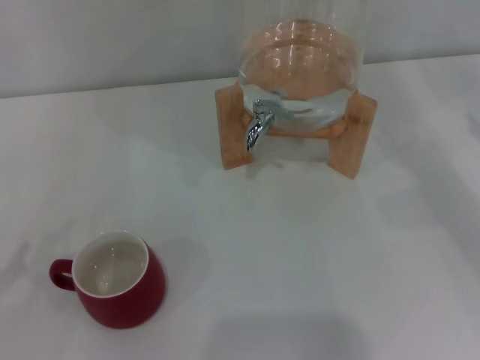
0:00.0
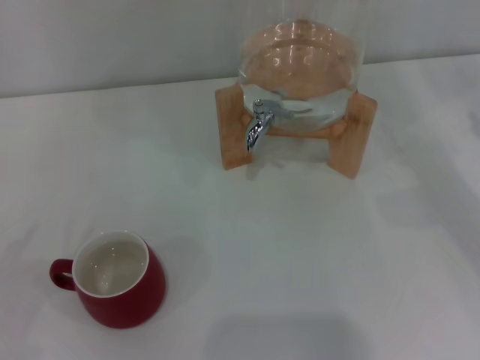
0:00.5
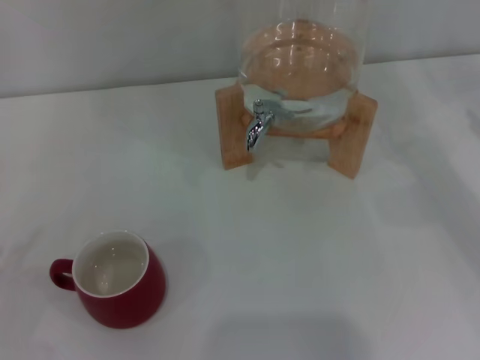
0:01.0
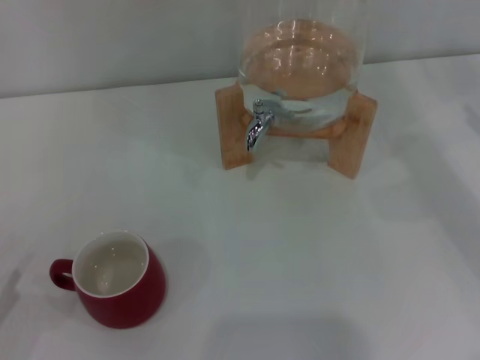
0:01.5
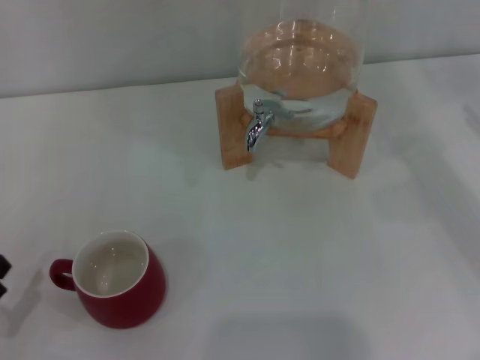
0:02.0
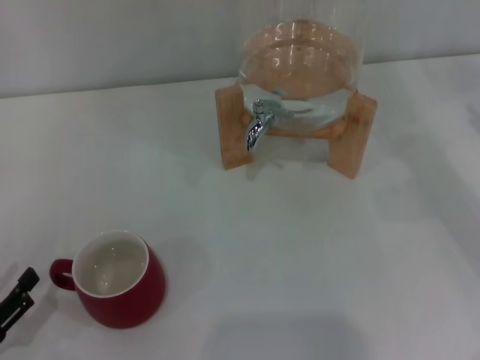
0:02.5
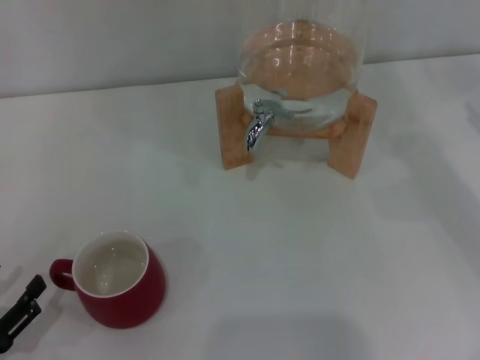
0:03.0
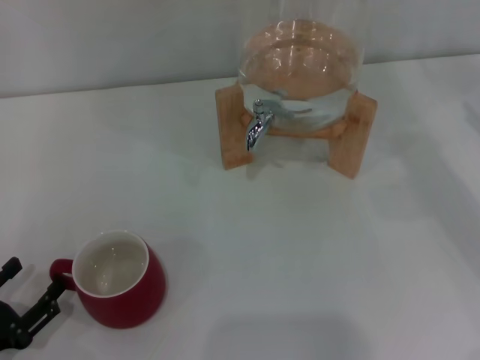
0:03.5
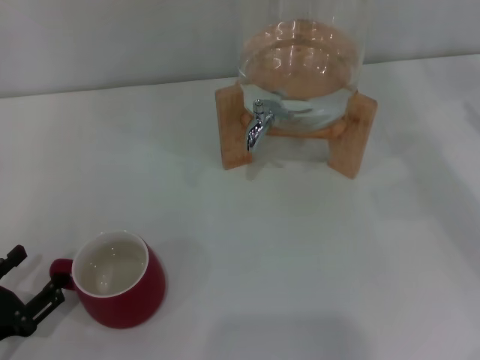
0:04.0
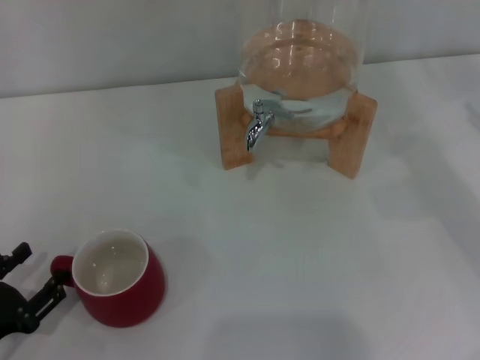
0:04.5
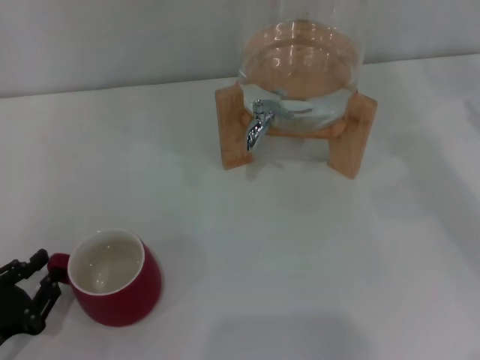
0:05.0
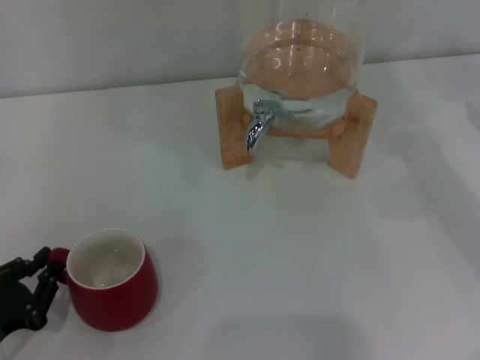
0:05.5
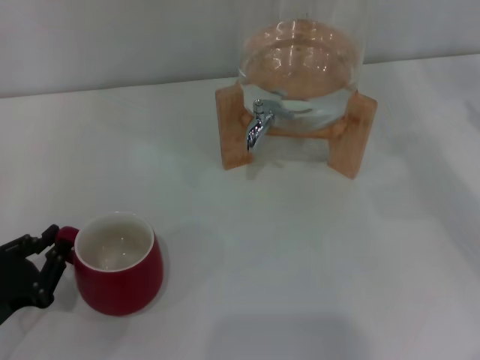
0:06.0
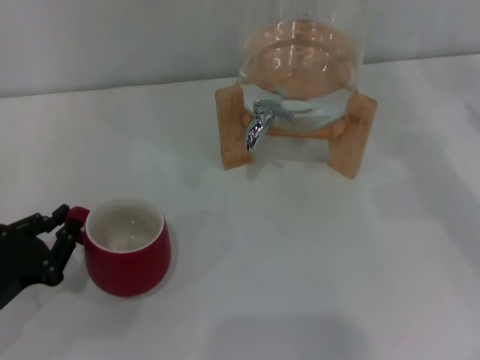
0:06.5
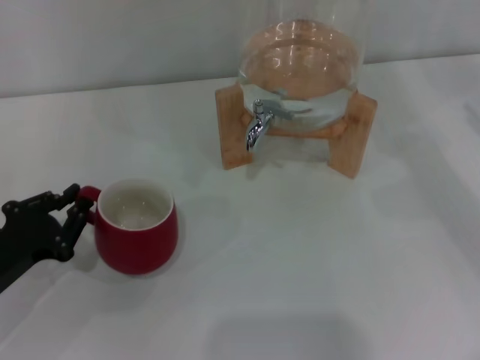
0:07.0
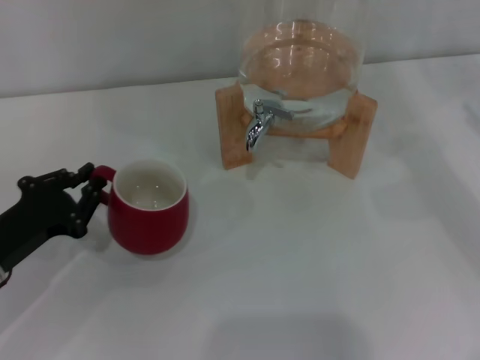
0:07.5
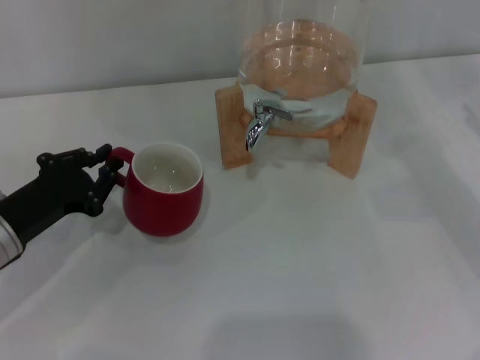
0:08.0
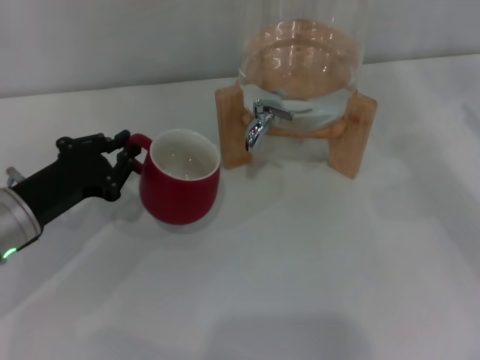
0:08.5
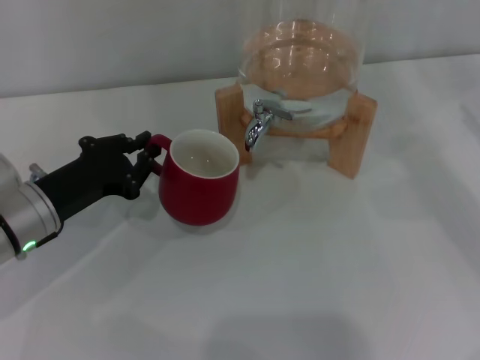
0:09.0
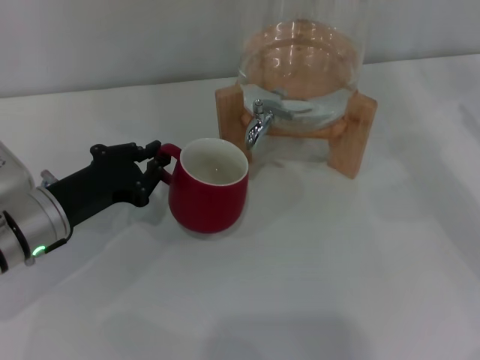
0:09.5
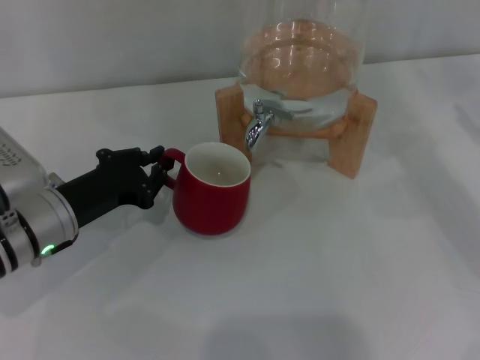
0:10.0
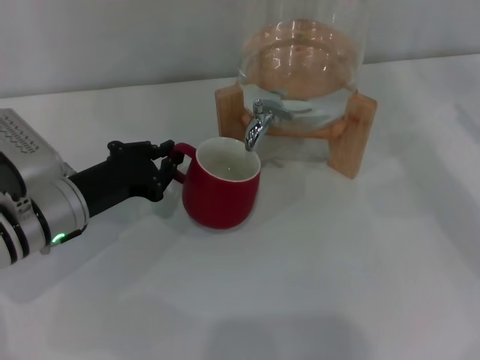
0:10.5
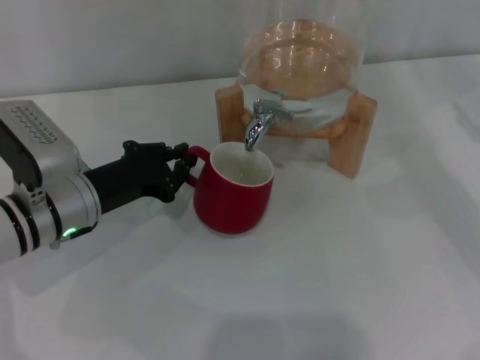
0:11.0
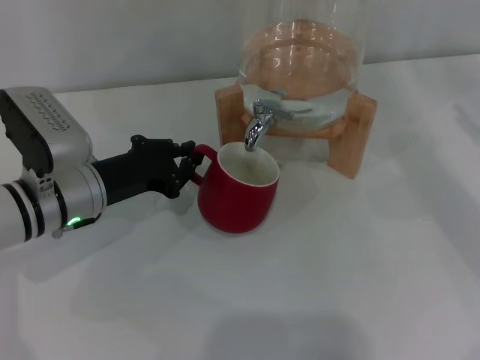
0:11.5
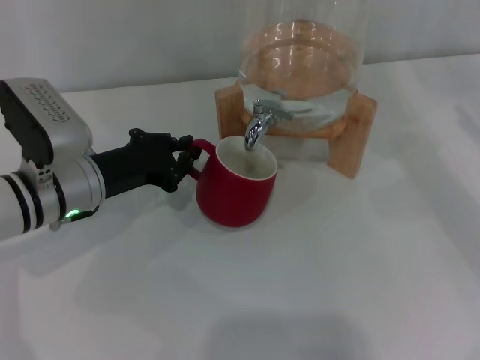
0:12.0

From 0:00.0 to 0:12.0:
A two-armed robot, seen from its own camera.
Task of the whole recording: the left gripper pick up the red cup and place it horizontally under the faucet, the right gripper turn on the faucet to fill the cup, and then turn off the faucet.
From 0:00.0 to 0:02.0: The left gripper moves downward, some 5 cm.
From 0:02.0 to 0:04.0: The grippers stay close to where they were, moving slightly.
From 0:04.0 to 0:06.0: The left gripper closes up.
From 0:06.0 to 0:08.0: The left gripper travels forward and to the right by roughly 10 cm.
From 0:08.0 to 0:10.0: The left gripper shifts by about 5 cm.
From 0:10.0 to 0:12.0: The grippers stay close to where they were, moving slightly.

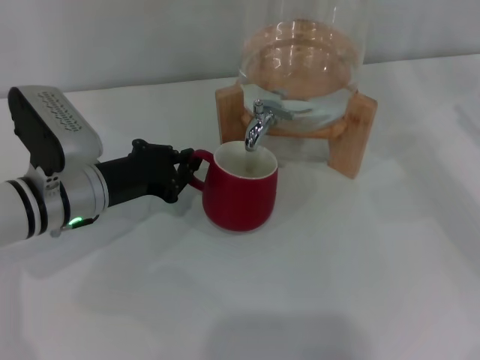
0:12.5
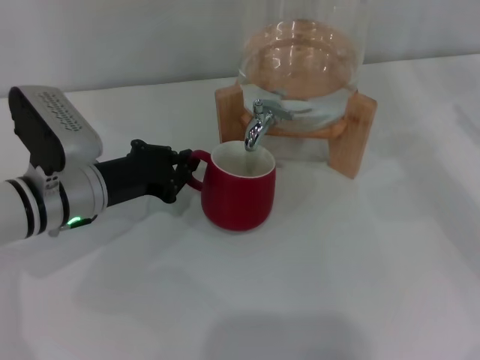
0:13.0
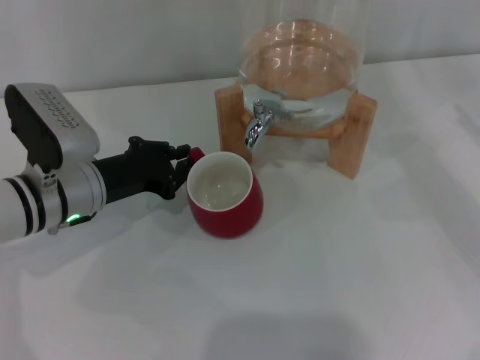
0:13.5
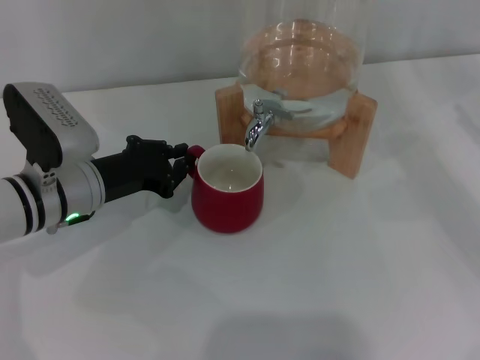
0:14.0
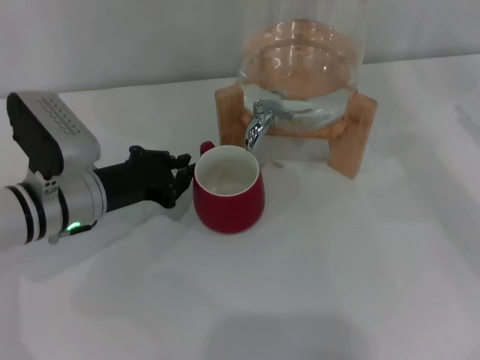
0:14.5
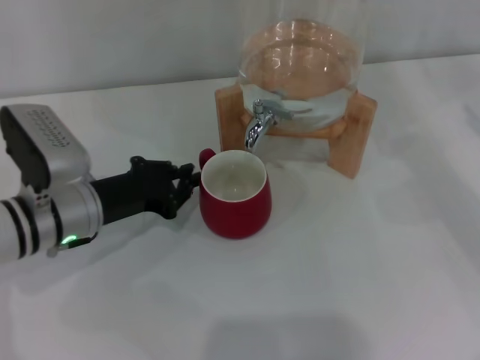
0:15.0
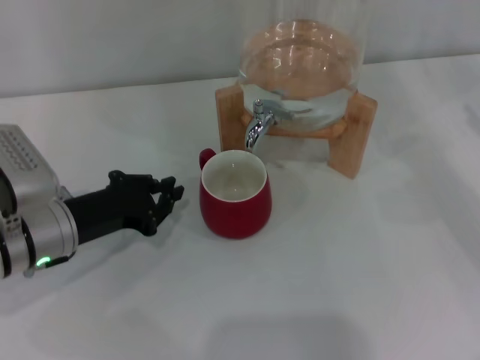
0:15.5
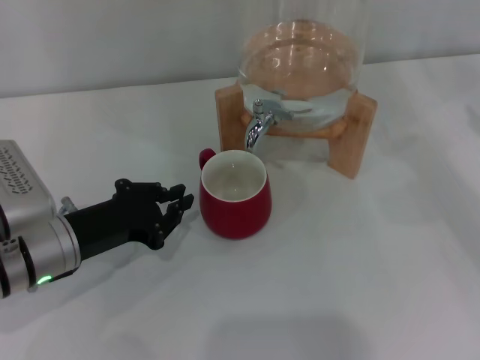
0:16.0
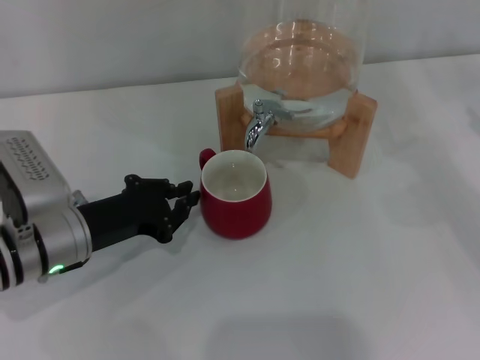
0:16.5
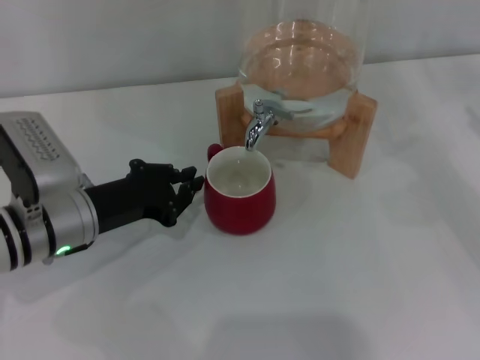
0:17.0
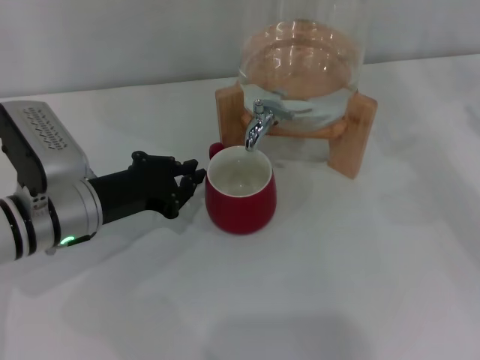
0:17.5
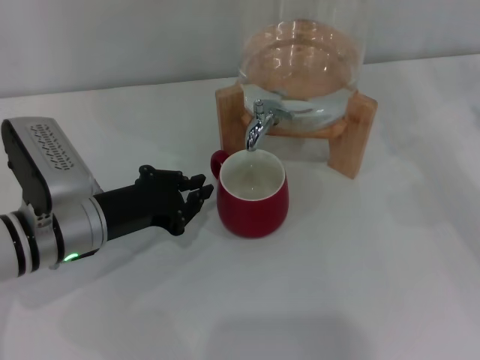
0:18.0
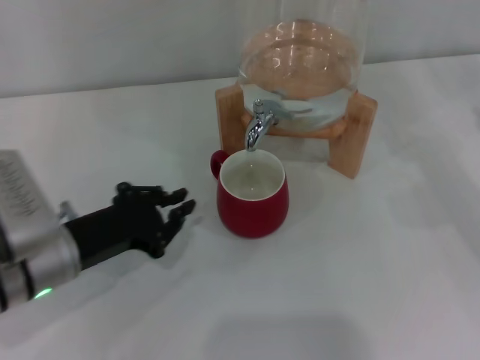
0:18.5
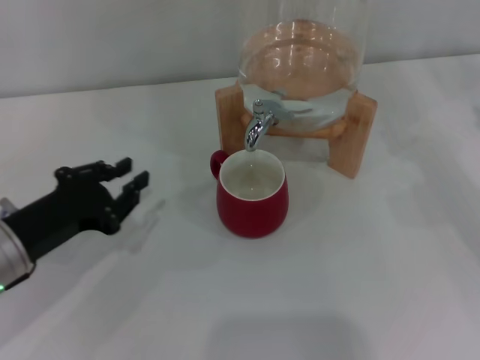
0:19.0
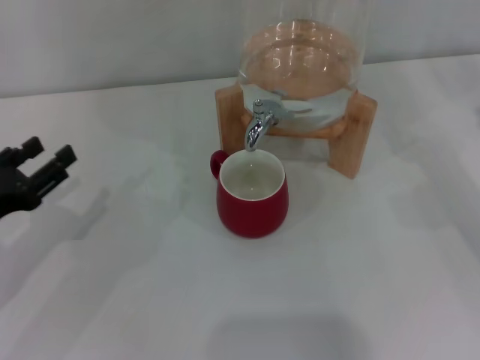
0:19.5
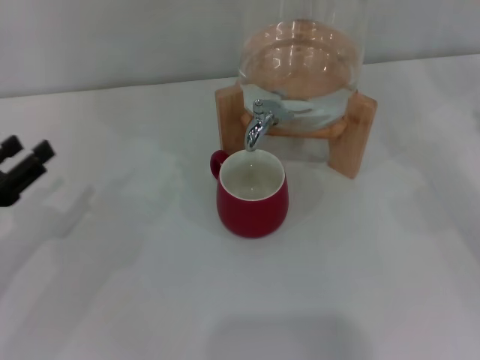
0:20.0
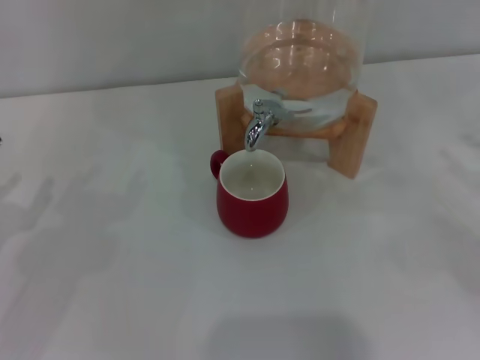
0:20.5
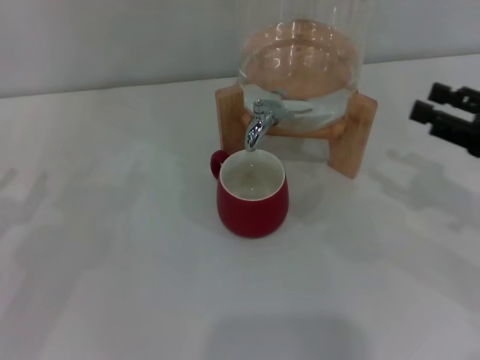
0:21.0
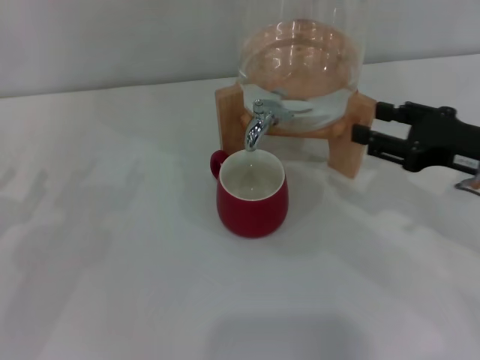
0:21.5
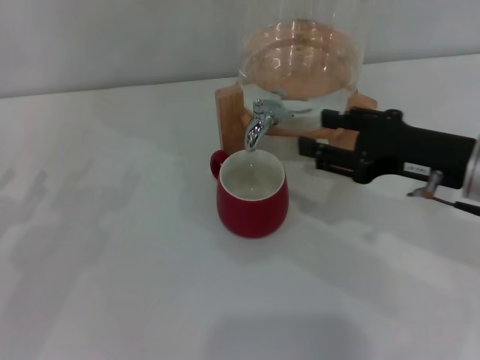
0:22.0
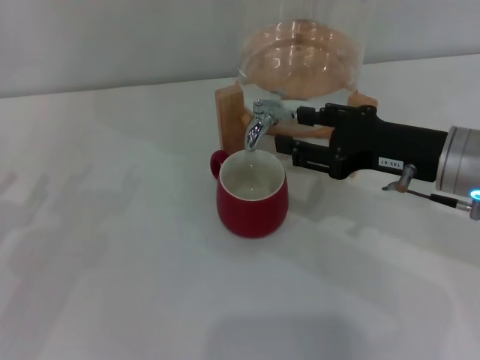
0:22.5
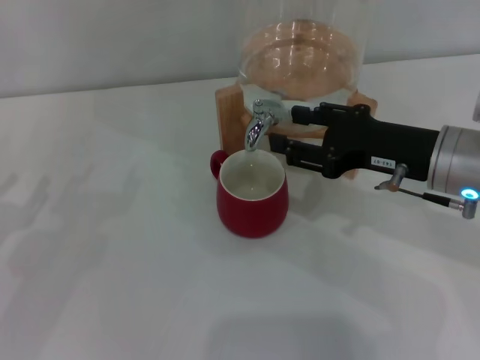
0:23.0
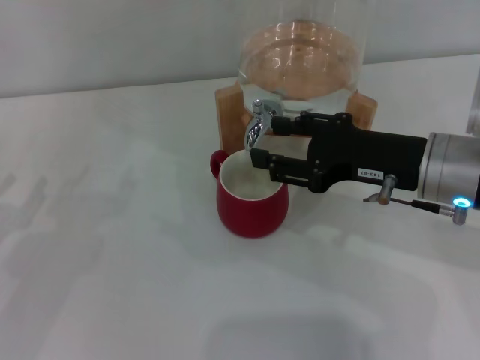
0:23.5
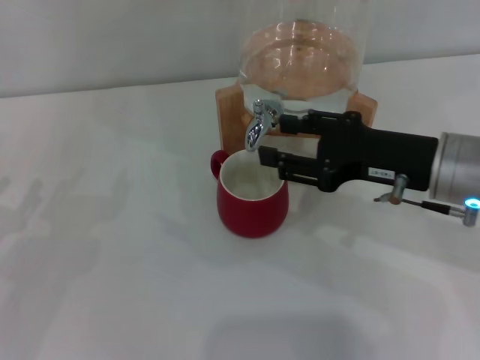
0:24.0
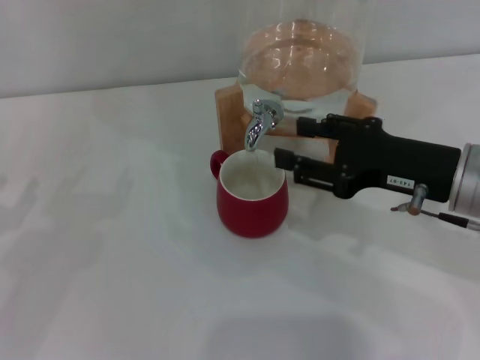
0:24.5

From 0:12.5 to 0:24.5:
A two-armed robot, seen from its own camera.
Task of the whole recording: the left gripper pick up the red cup and place it horizontally under the faucet, the right gripper turn on the faucet to fill the cup, and then turn off the faucet.
Step, from 0:12.5 to 0:18.0: Move the cup beneath the water dispenser nozzle with the left gripper.
Step, from 0:18.5 to 0:24.0: Open the dispenser valve and fill the cup with water with the right gripper.
From 0:12.5 to 0:14.5: Both grippers stay put.
From 0:14.5 to 0:16.5: The grippers move only a little.
From 0:16.5 to 0:18.5: The grippers move only a little.
From 0:18.5 to 0:20.5: The right gripper moves backward, roughly 5 cm. Meanwhile the left gripper goes roughly 15 cm to the left, and opens.
From 0:20.5 to 0:22.5: The right gripper goes about 20 cm to the left.
From 0:22.5 to 0:24.5: The grippers make only small movements.

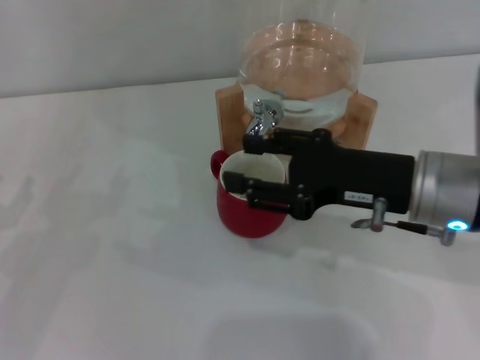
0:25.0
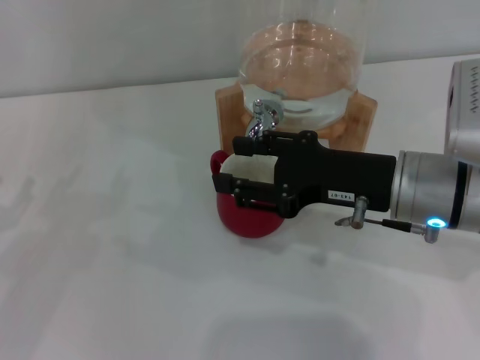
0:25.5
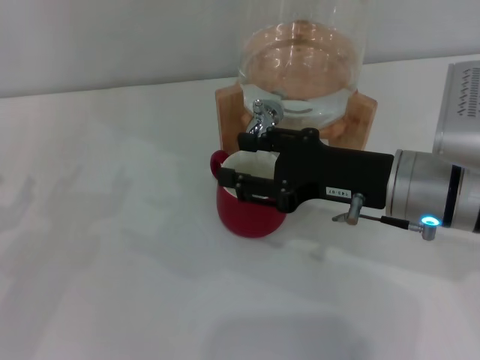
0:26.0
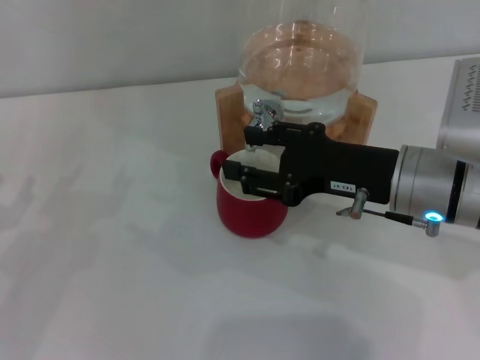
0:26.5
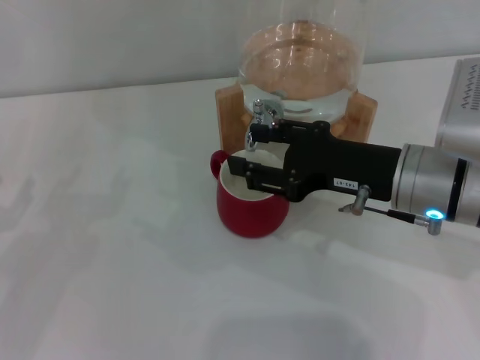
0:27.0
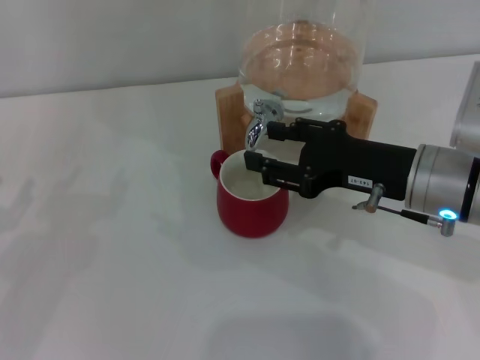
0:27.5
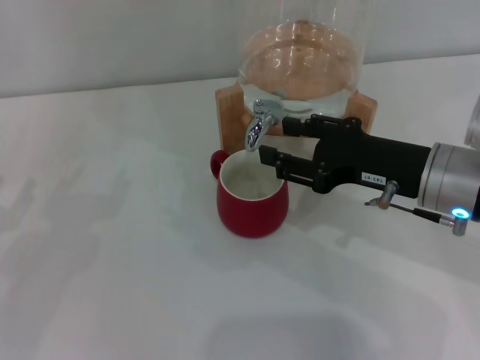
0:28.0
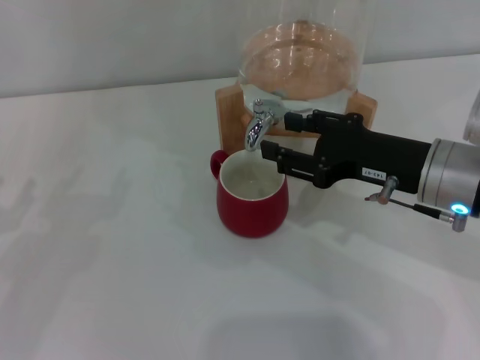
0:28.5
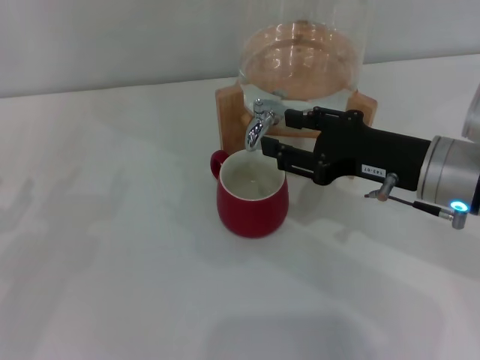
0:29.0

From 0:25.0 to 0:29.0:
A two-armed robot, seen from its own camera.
Task of the whole recording: the left gripper pick up the red cup and place it horizontally under the faucet, the right gripper turn on the faucet to fill the cup, and then turn off the faucet.
From 0:25.0 to 0:29.0: The grippers make only small movements.
